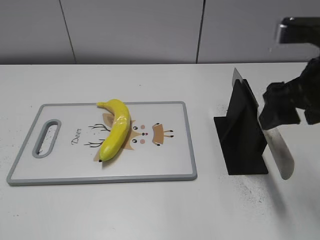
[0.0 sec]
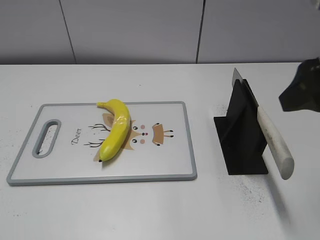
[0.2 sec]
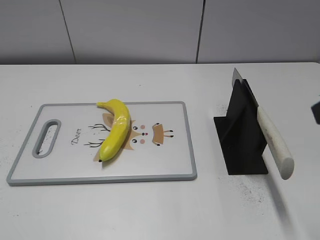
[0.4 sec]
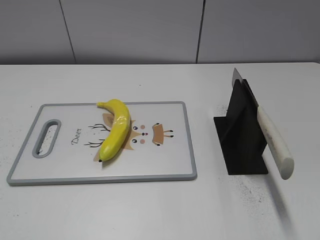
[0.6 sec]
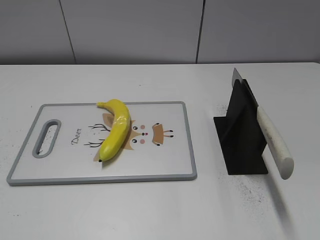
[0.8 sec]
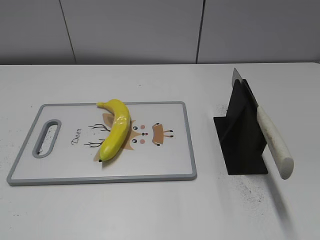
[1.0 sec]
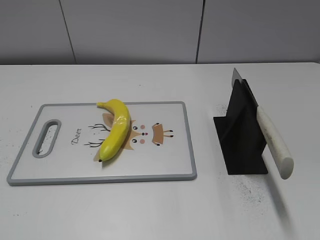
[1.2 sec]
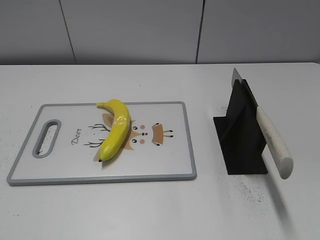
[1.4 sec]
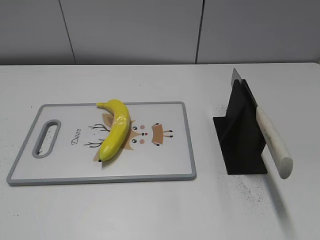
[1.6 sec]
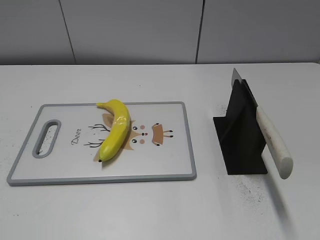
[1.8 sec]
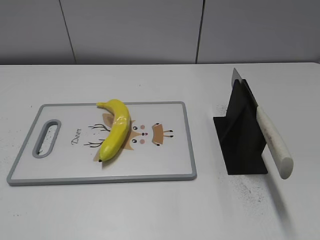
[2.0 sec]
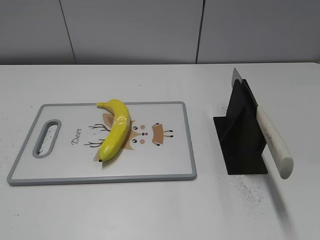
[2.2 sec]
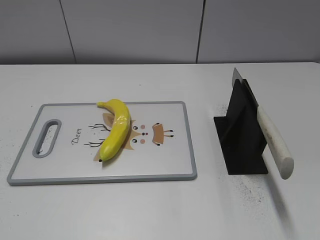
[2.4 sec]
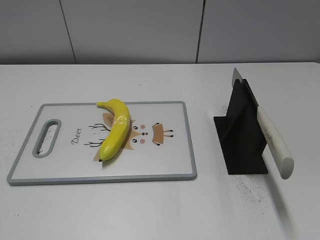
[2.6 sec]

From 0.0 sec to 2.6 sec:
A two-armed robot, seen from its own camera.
Task of the whole recording: cut plastic banana.
Step, from 0.0 sec to 2.6 sec: Place the knife on the storage rack with your right hand.
From 0.0 sec to 1.2 sec: The right gripper heads backward and to the right, covering approximately 25 cm.
